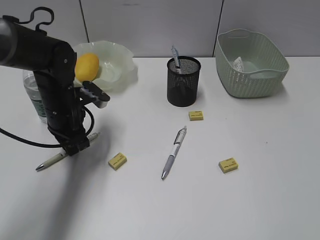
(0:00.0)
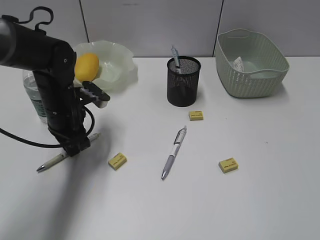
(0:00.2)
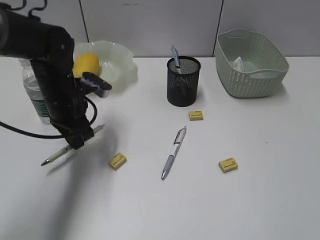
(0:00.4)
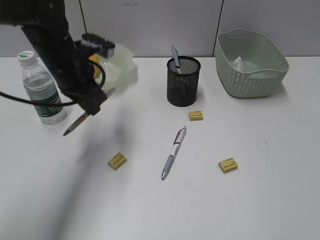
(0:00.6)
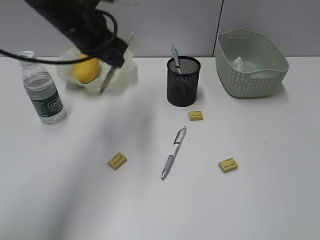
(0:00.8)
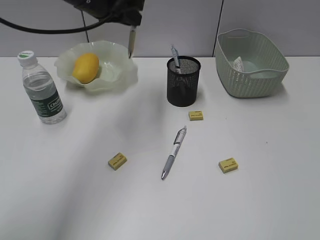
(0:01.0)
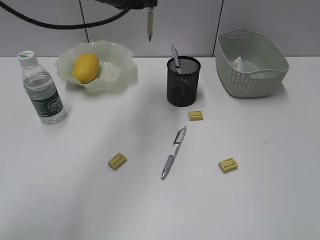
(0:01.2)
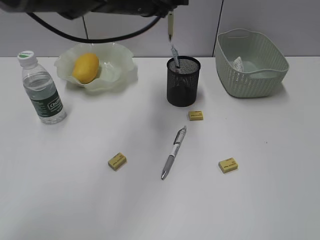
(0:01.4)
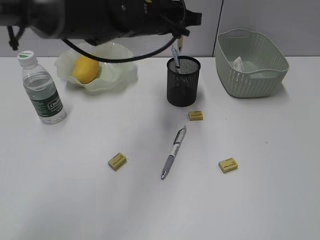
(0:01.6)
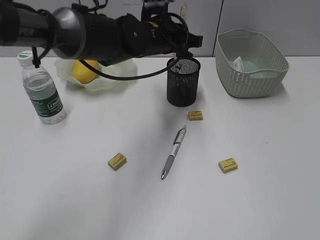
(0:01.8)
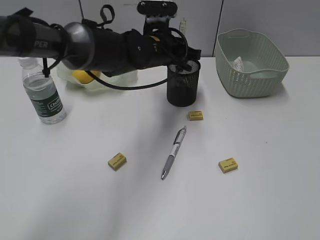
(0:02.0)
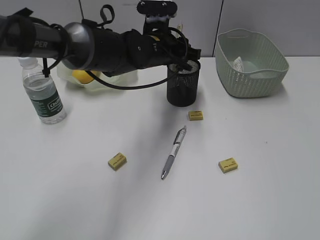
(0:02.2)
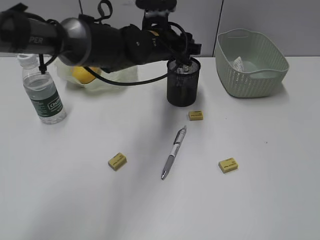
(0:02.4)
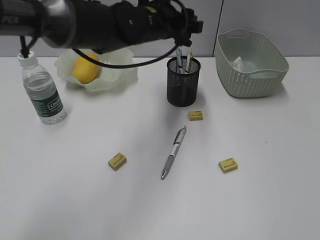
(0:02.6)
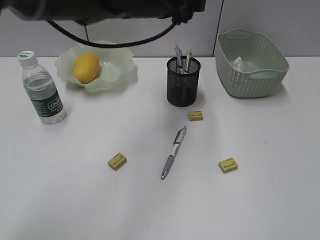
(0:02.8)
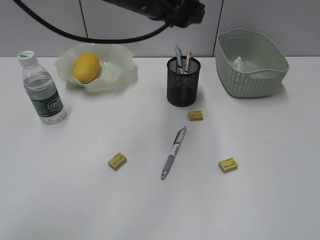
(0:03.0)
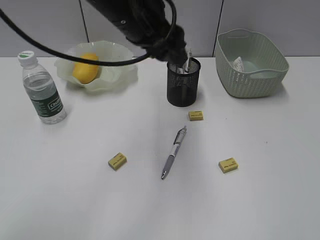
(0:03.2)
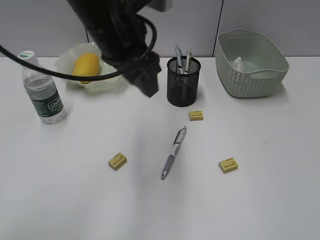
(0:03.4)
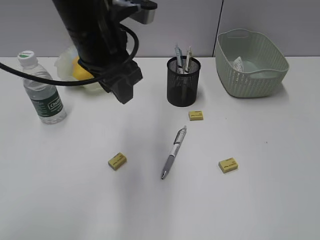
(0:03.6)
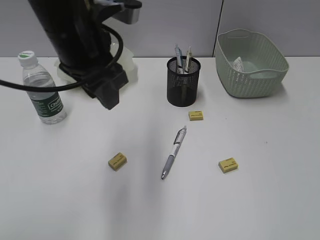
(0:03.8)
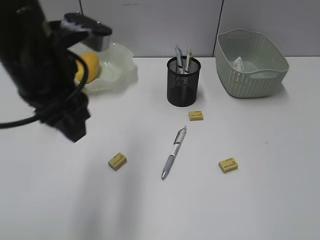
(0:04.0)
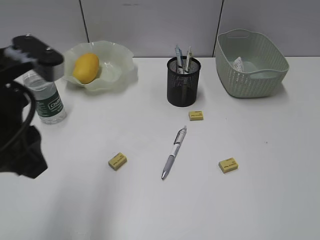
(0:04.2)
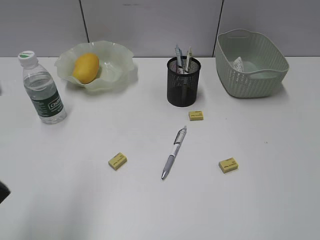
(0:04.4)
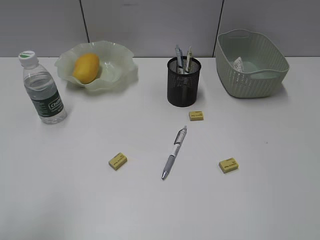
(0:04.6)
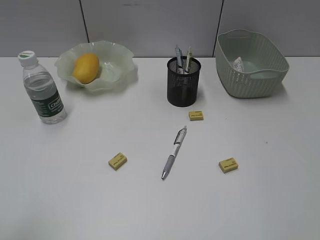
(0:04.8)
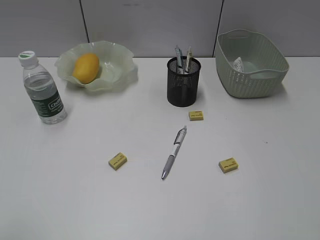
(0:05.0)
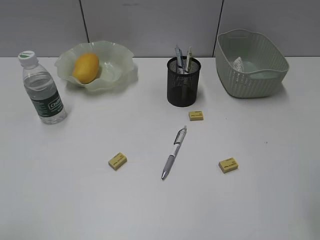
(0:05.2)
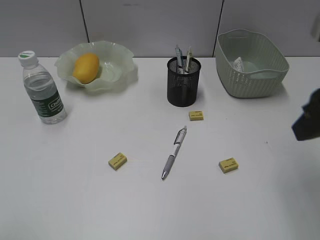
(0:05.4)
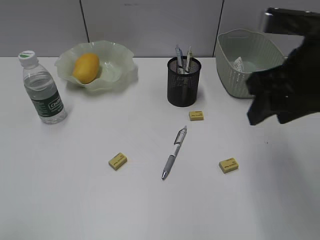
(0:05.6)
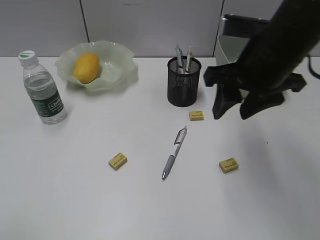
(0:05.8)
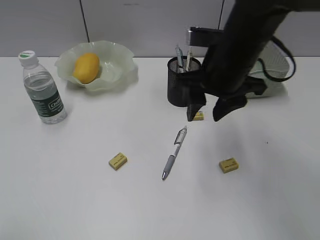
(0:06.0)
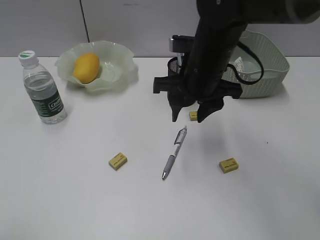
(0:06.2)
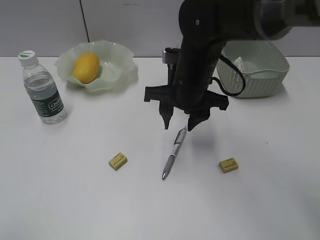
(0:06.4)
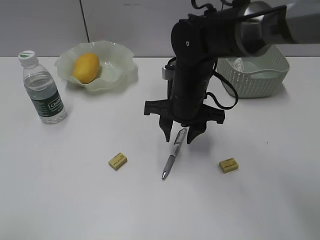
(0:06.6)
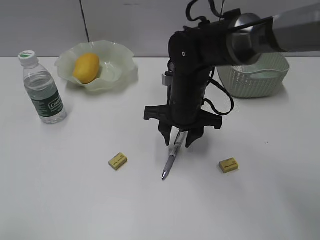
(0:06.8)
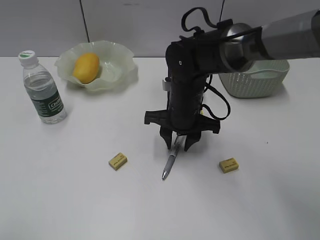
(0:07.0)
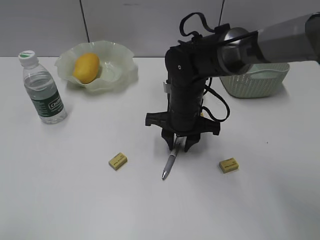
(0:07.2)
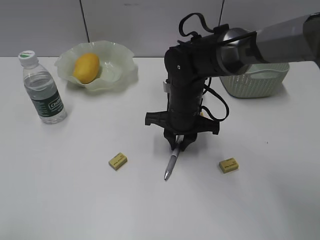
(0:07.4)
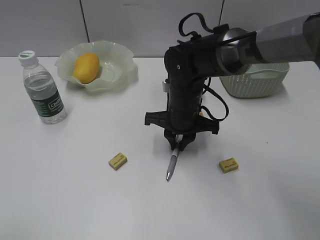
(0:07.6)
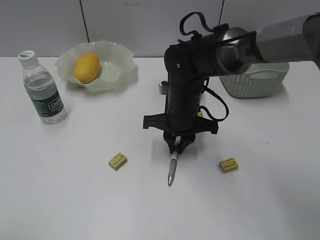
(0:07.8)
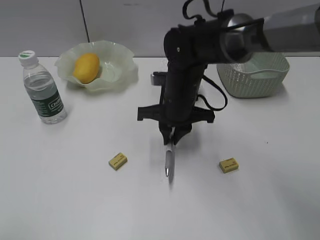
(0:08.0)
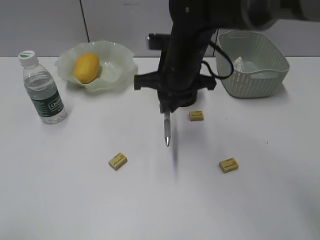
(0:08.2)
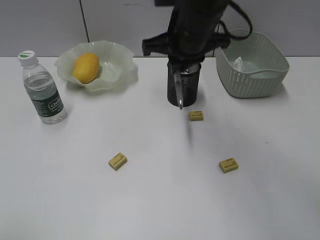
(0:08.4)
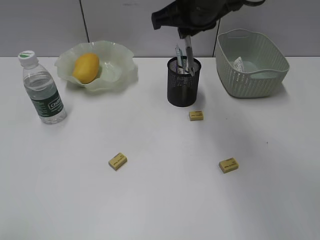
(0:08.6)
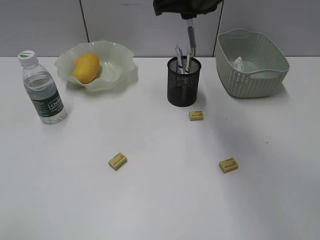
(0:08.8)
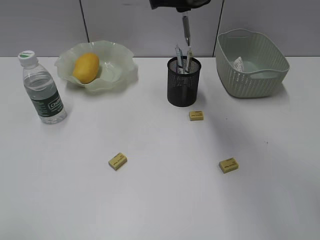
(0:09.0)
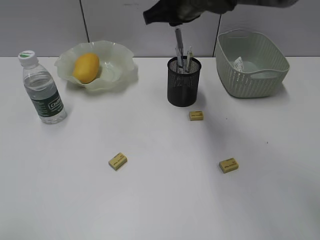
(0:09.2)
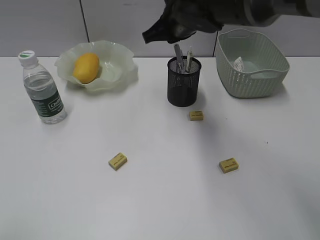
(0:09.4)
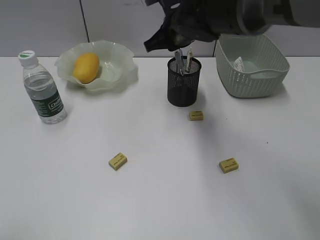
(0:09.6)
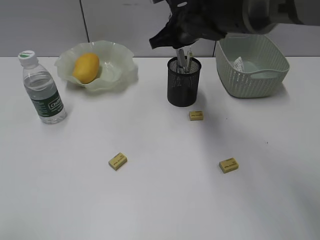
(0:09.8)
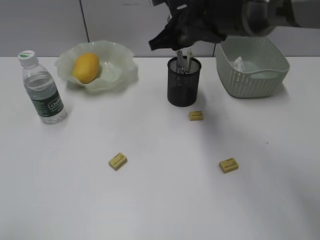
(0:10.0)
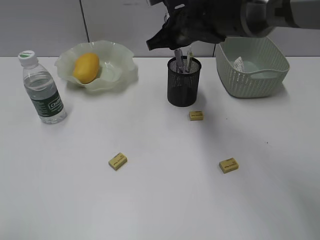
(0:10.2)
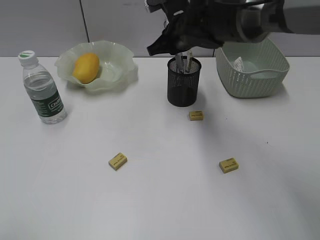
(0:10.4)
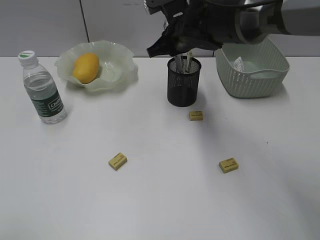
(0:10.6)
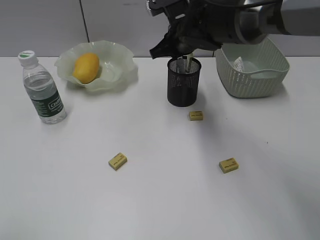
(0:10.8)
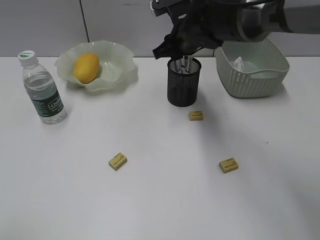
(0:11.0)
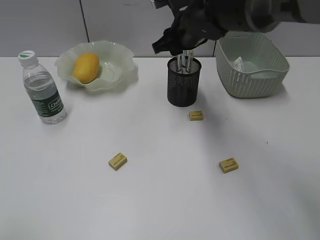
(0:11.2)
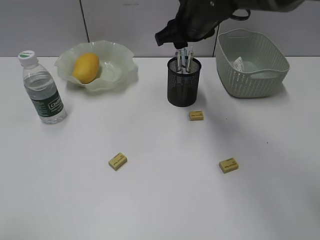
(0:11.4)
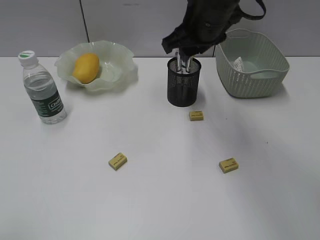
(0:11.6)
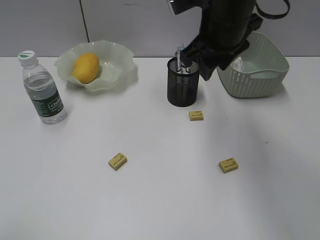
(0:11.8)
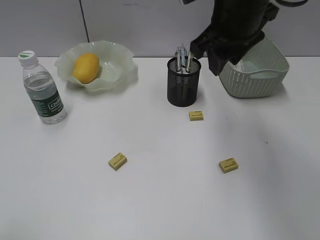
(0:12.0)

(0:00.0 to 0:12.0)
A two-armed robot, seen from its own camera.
Step, 0:00.2 - 0:02.4: Place the yellow pen in pen holder with left gripper.
Step, 0:02.6 - 0:07.6: Grasp the gray pen with right gripper.
Step, 0:07.8 - 0:11.0: Place the gray pen in pen holder with right gripper.
0:00.0 - 0:01.6: The left gripper moves to the right and upward, approximately 20 cm.
0:01.6 - 0:03.0: The left gripper moves about 5 cm, and opens.
0:03.0 - 0:04.4: The left gripper travels backward and to the left by roughly 30 cm.
0:04.4 - 0:06.0: The right gripper moves forward and to the left, about 35 cm; the left gripper is displaced backward and to the left by about 15 cm.
0:06.0 - 0:07.6: The right gripper is displaced downward and to the left by some 15 cm, and closes its fingers.
0:07.6 - 0:09.0: The right gripper moves upward, approximately 20 cm.
0:09.0 - 0:10.4: The right gripper shifts roughly 10 cm downward.
0:10.4 - 0:12.0: The right gripper moves upward, backward and to the right, approximately 15 cm, and opens.

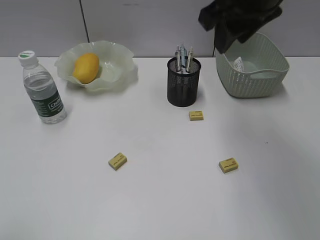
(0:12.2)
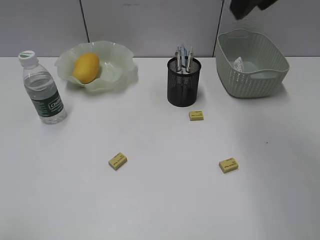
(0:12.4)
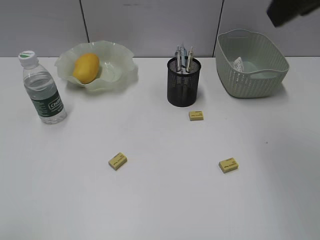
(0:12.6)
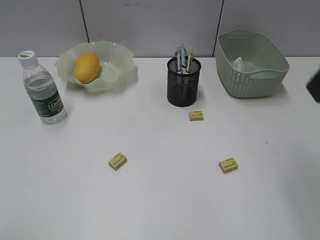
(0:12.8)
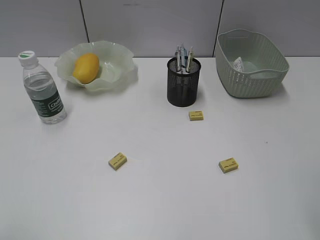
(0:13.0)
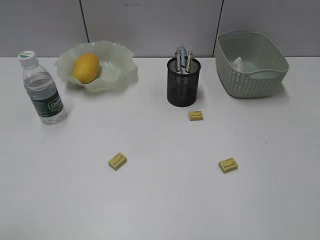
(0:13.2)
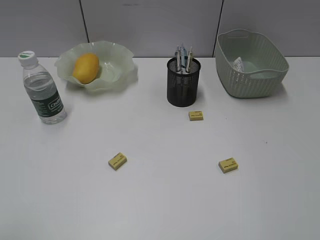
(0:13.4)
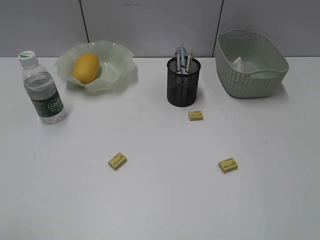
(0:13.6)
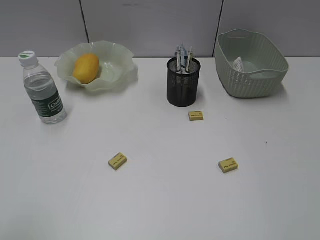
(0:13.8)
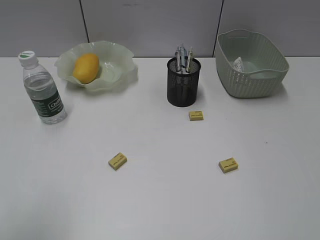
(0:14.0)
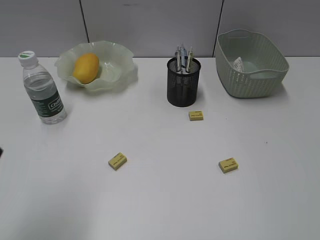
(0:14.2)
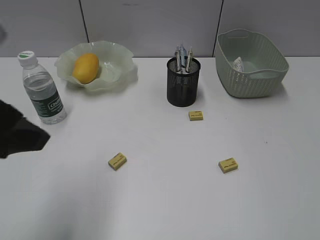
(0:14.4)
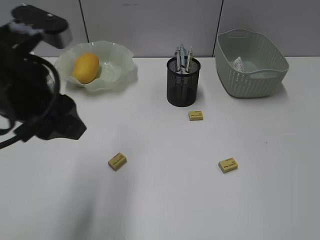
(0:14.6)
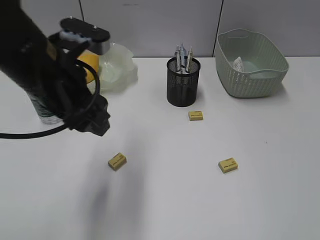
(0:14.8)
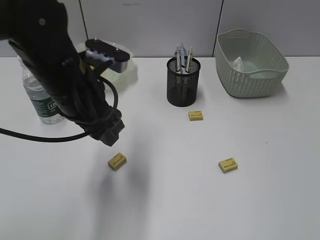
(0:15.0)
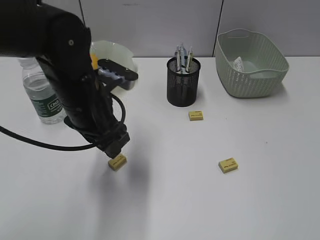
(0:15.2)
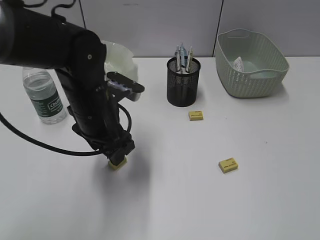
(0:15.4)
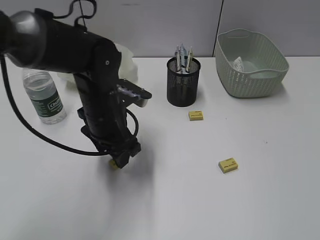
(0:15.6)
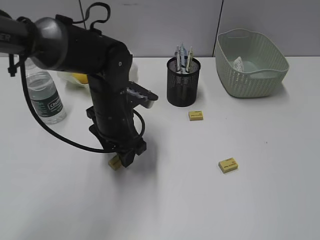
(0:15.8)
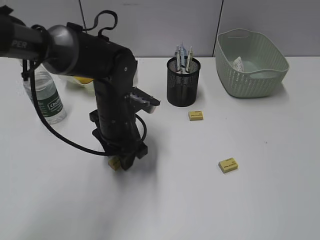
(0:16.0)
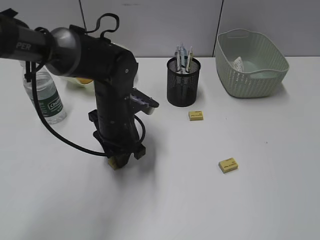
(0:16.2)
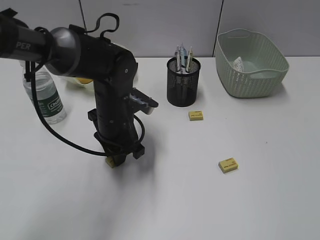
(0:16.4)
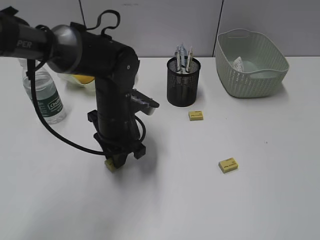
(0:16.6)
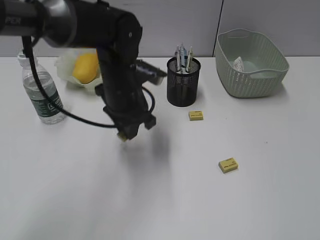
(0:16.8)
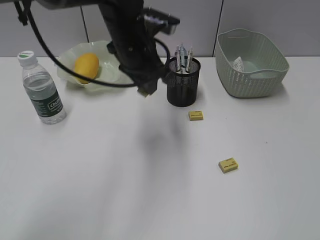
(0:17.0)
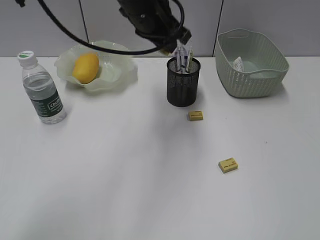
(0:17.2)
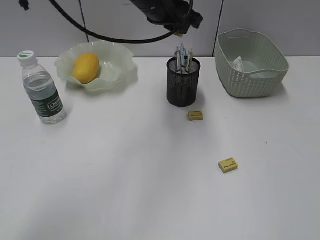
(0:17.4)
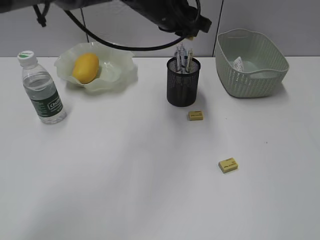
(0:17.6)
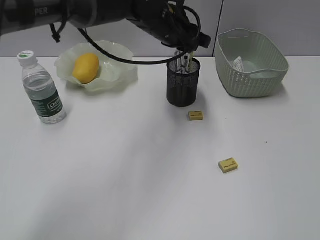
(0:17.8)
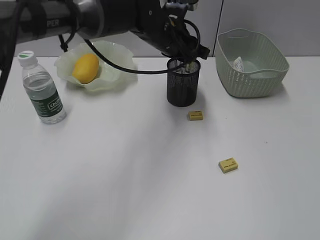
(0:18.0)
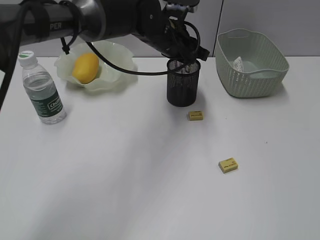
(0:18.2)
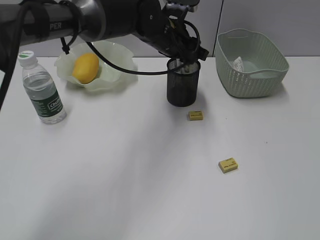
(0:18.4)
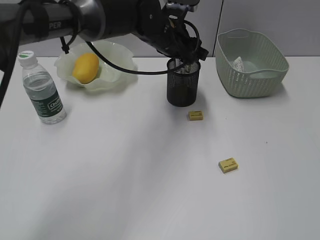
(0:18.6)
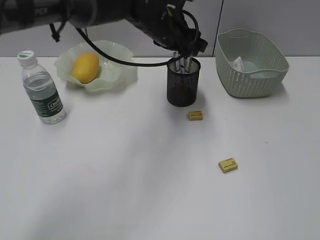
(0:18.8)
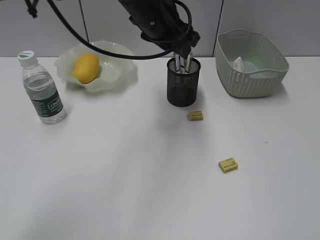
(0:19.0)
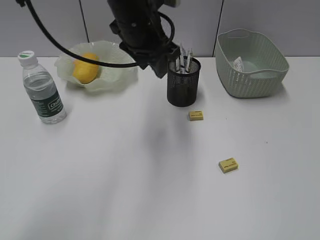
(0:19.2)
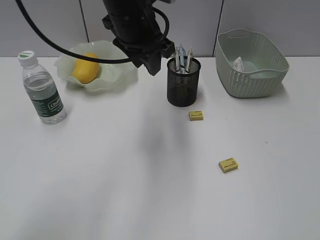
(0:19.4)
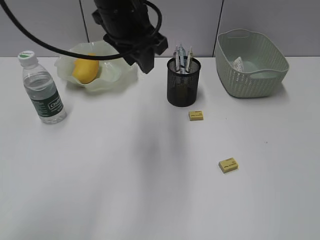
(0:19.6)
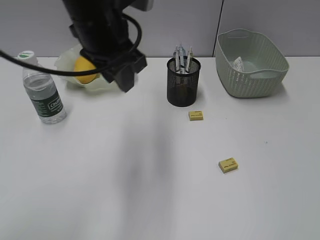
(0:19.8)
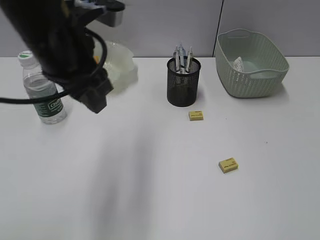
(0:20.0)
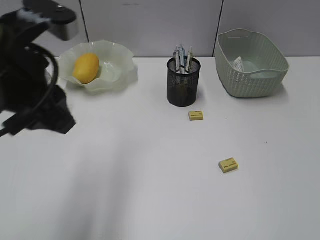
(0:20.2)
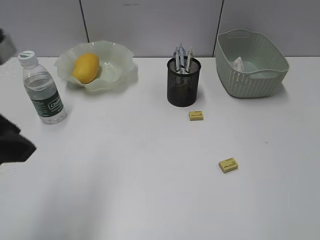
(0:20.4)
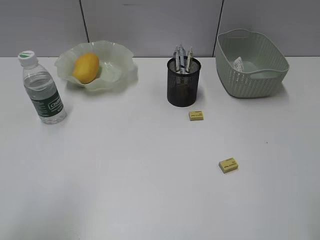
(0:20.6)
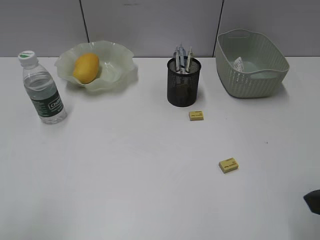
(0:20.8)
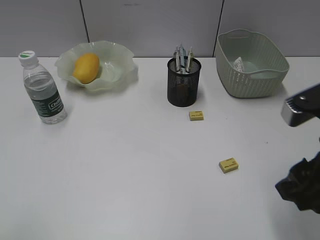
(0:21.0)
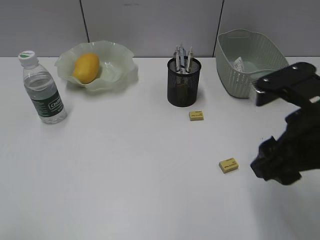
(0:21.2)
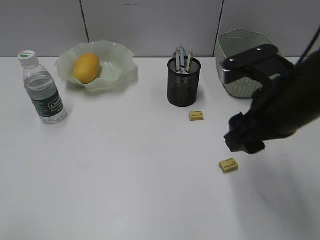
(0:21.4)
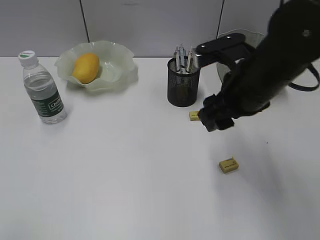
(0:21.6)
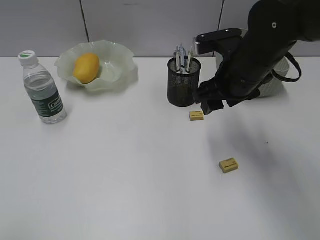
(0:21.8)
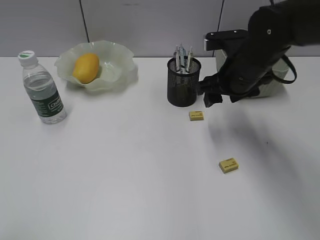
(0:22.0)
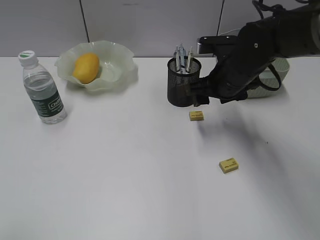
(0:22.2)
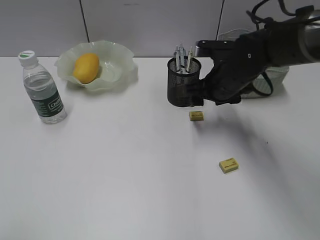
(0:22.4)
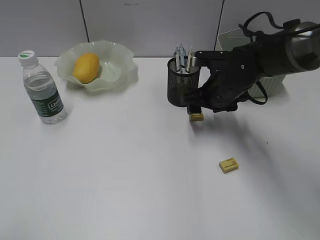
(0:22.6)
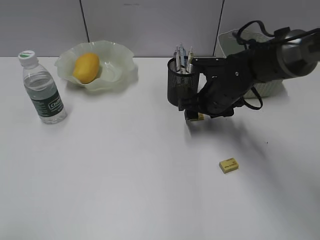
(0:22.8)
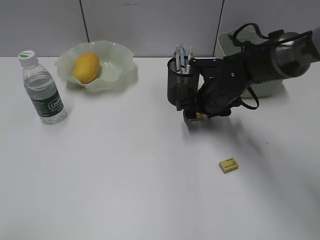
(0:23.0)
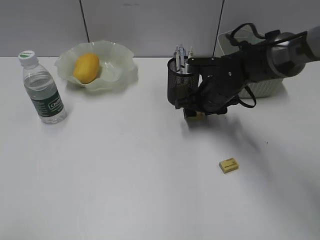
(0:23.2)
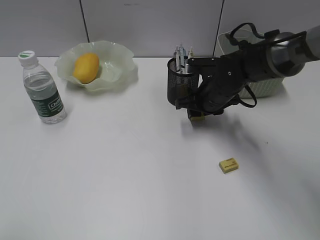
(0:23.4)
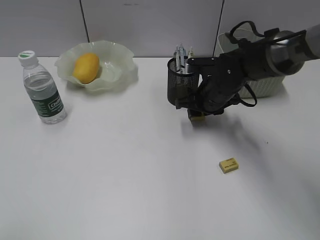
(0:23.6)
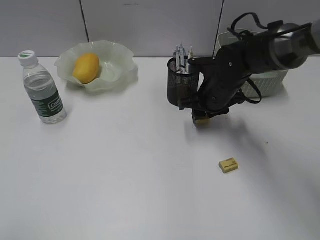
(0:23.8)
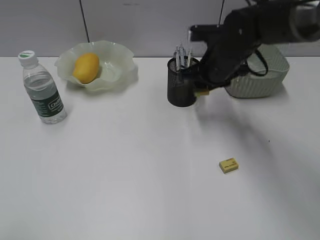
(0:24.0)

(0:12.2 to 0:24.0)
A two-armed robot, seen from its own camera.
Step, 0:12.2 - 0:16.4: Grasp the eraser with left gripper.
Step, 0:16.6 - 0:18.6: Place the eraser in pen holder with left gripper.
Step, 0:18.8 - 0:23.6: Grasp the eraser with right gripper.
0:12.2 - 0:13.6: The right gripper goes about 35 cm backward and to the right, and opens.
0:13.6 - 0:15.2: The left gripper shifts about 35 cm forward and to the right.
0:15.2 - 0:16.6: The left gripper shifts approximately 5 cm downward, and closes up.
0:16.6 - 0:18.2: The left gripper travels forward, upward and to the right by some 15 cm.
0:18.2 - 0:19.6: The left gripper goes about 15 cm upward, backward and to the left.
0:19.6 - 0:21.0: The left gripper goes roughly 40 cm backward and to the left. Meanwhile the right gripper is displaced forward and to the left by approximately 15 cm.
0:21.0 - 0:22.6: The right gripper moves forward and downward, some 25 cm.
0:22.6 - 0:24.0: The right gripper closes up.
